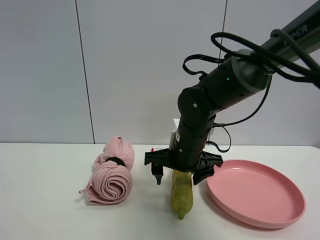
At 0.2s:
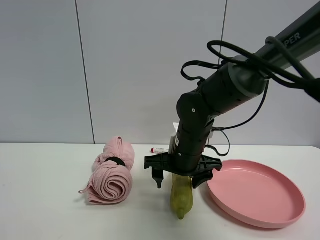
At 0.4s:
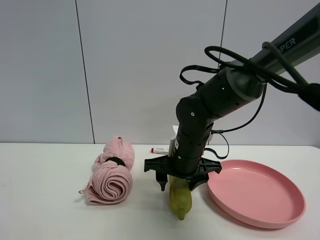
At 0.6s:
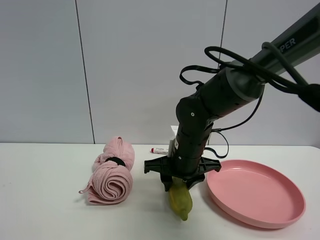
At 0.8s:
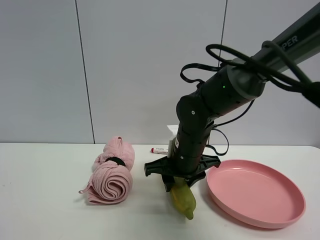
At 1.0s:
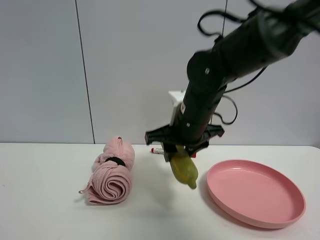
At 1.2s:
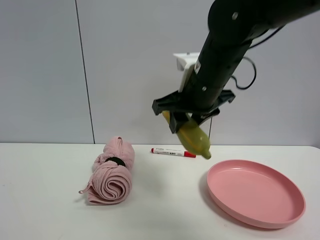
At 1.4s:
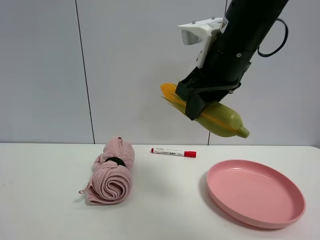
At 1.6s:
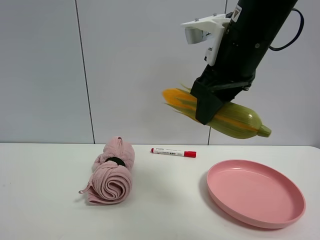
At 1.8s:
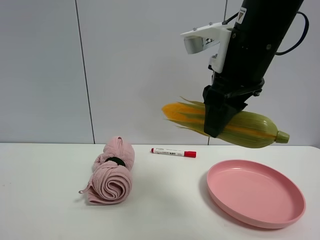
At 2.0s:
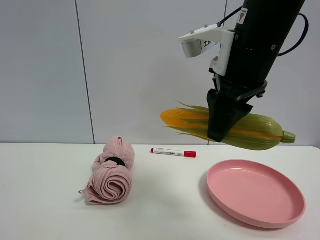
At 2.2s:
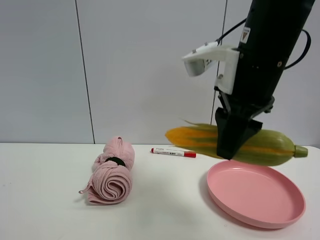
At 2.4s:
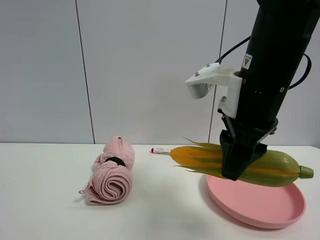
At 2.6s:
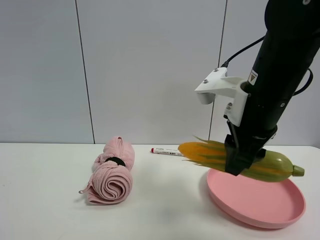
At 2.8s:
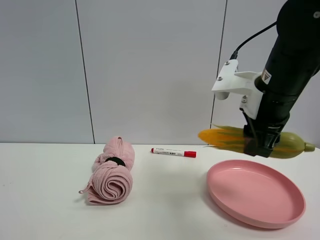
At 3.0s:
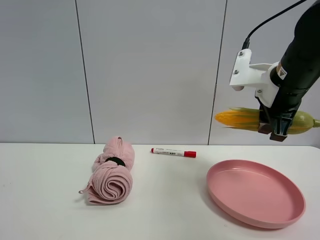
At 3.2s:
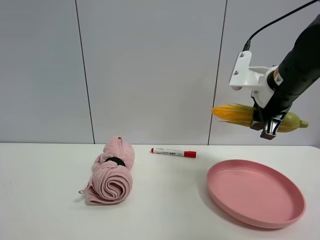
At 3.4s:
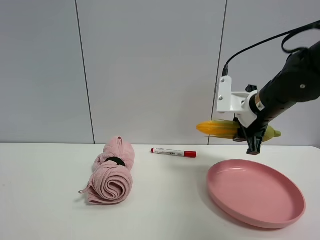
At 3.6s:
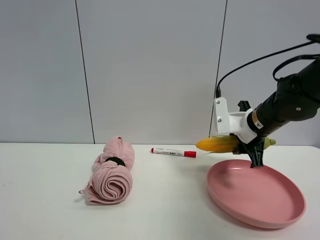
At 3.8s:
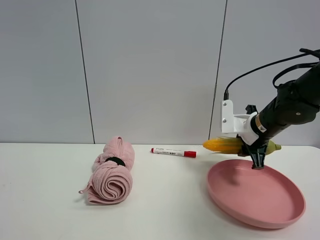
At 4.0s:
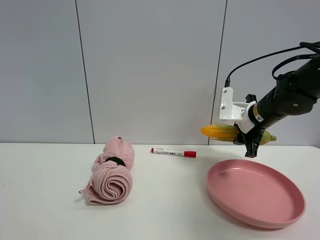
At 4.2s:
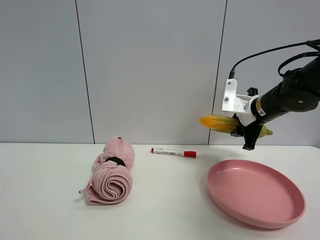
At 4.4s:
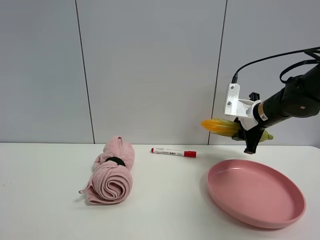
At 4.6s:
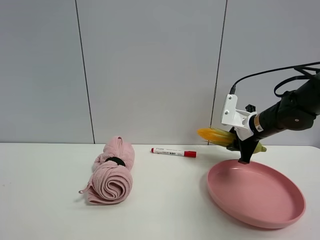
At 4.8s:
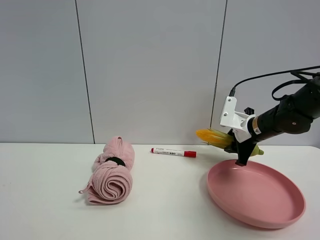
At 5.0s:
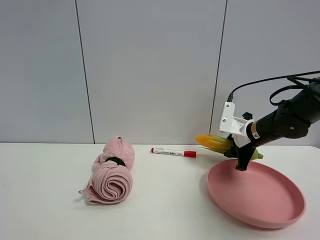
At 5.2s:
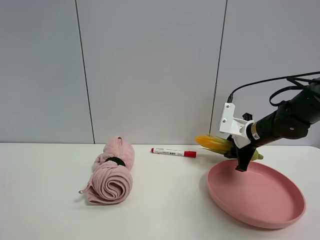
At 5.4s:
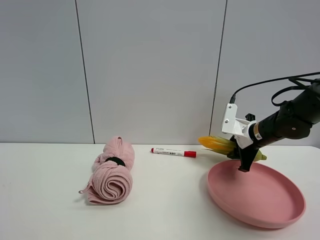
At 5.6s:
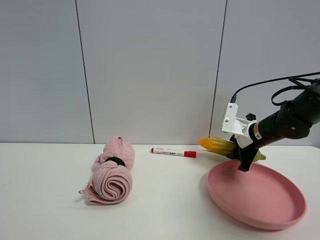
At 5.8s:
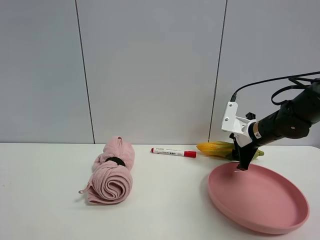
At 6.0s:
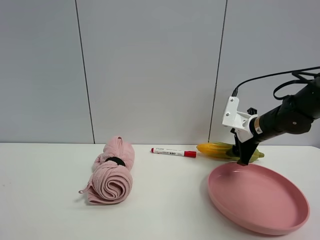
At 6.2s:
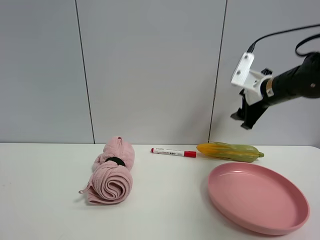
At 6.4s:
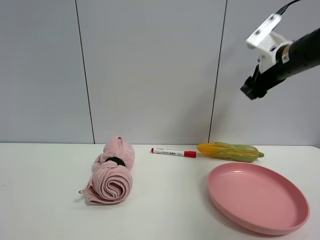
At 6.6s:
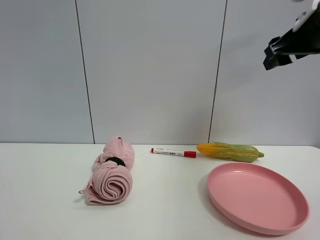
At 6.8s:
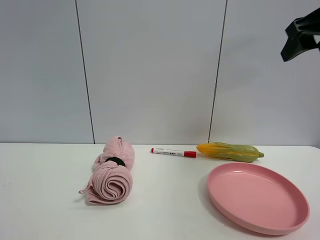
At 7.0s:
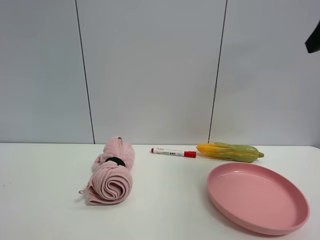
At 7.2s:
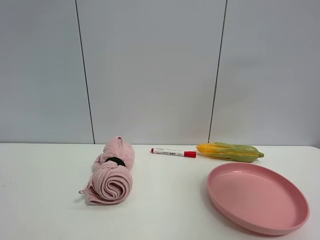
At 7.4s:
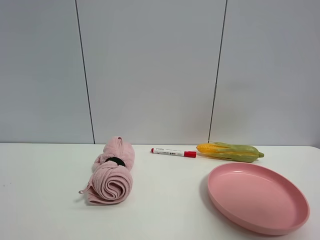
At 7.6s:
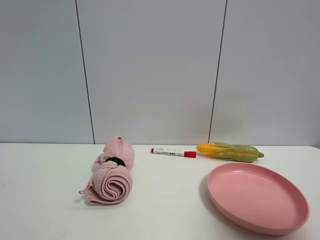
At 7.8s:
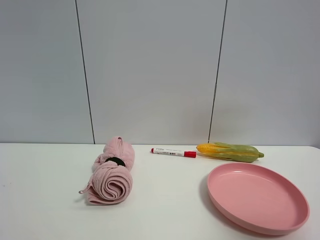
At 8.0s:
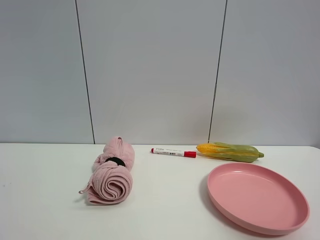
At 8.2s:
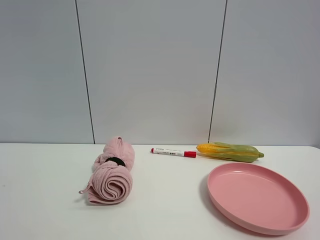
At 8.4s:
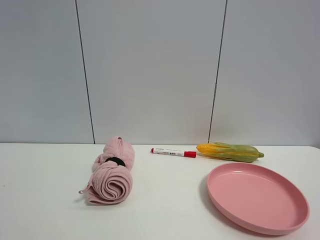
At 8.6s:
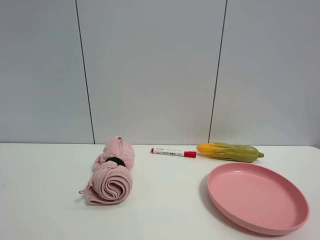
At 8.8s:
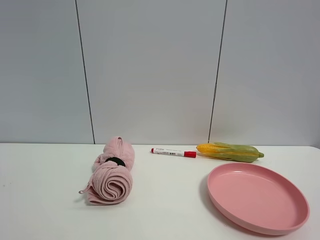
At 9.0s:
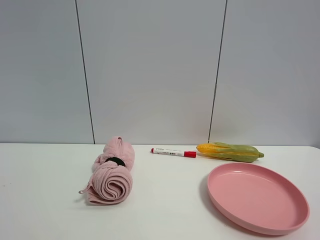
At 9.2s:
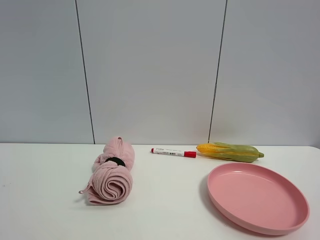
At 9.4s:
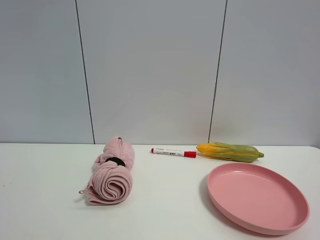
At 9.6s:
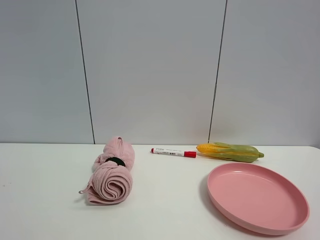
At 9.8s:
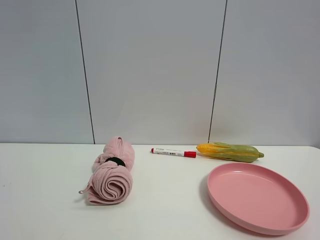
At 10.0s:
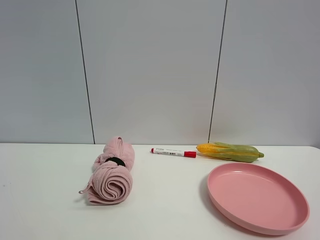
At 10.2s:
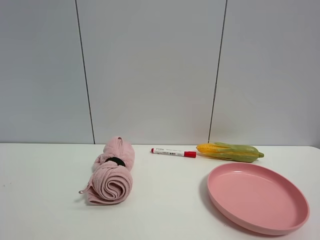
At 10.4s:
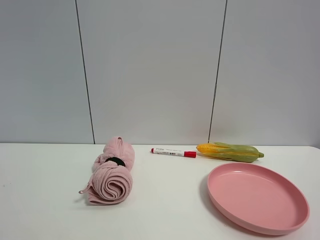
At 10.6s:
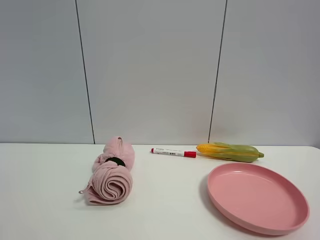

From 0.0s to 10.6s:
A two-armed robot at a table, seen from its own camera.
Task of the whole recording: the gripper move the object.
Step, from 0.6s to 6.2s: Place the corn on the table with the right gripper.
From 0.0s to 1.6s: The right gripper moves upward and backward, some 20 cm, and closes.
From 1.6s to 3.0s: The right gripper goes approximately 15 cm to the right, downward and forward.
From 3.0s to 4.6s: The right gripper shifts roughly 15 cm downward and forward.
From 4.6s to 6.0s: The right gripper opens up.
From 6.0s to 7.6s: The right gripper travels backward and upward by approximately 40 cm.
From 7.6s to 9.0s: The right gripper goes approximately 10 cm backward and downward.
From 9.0s to 10.6s: Neither gripper changes place.

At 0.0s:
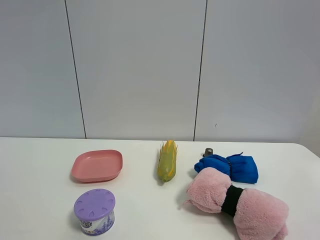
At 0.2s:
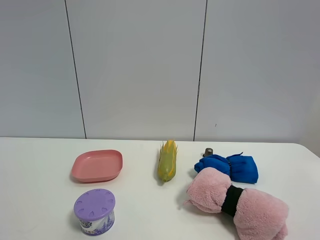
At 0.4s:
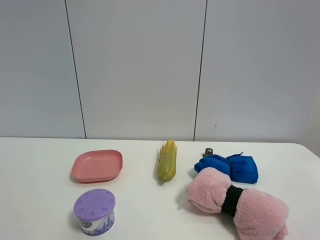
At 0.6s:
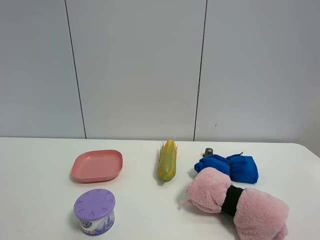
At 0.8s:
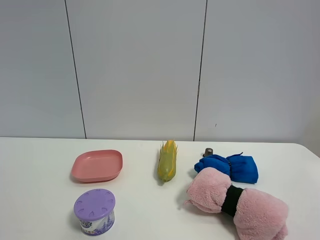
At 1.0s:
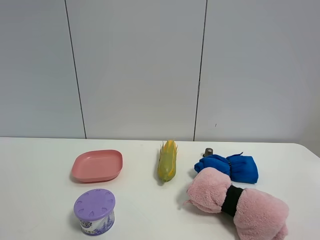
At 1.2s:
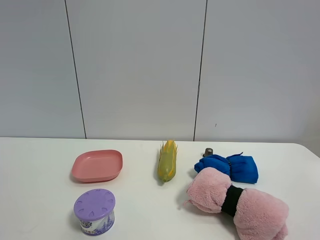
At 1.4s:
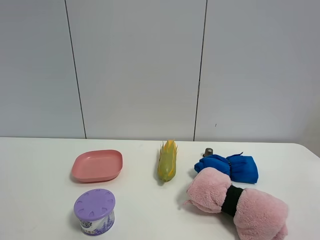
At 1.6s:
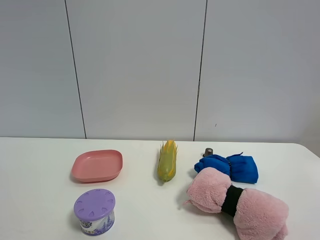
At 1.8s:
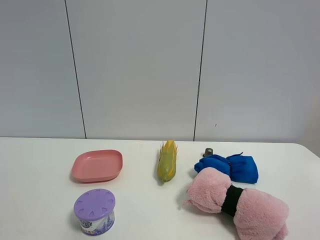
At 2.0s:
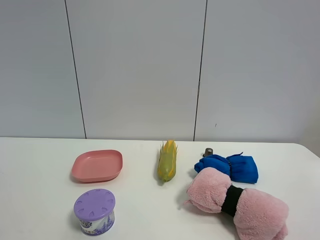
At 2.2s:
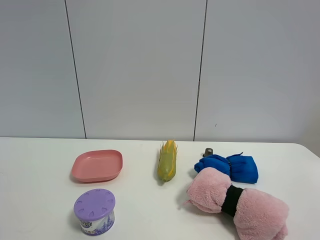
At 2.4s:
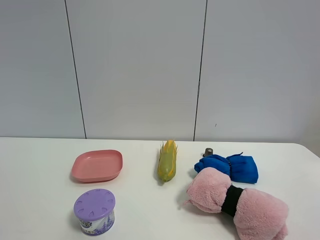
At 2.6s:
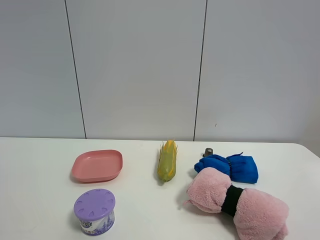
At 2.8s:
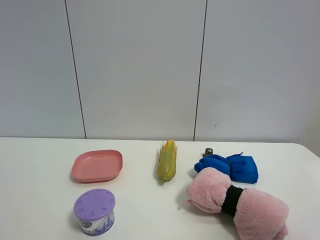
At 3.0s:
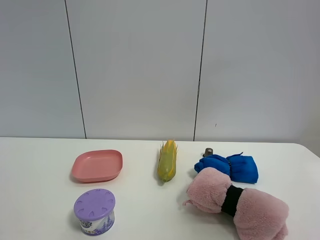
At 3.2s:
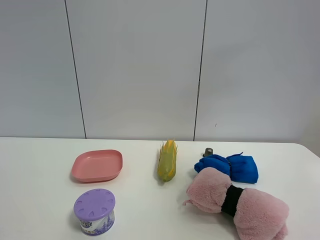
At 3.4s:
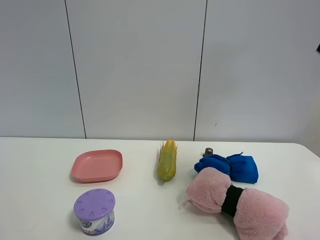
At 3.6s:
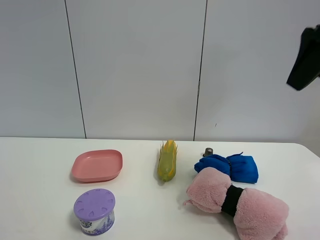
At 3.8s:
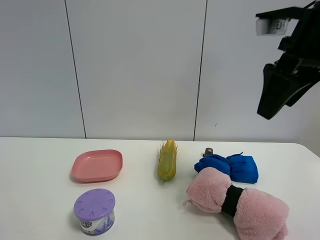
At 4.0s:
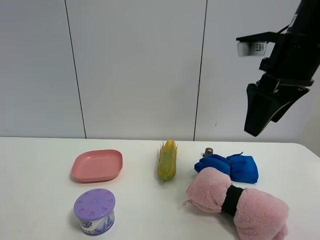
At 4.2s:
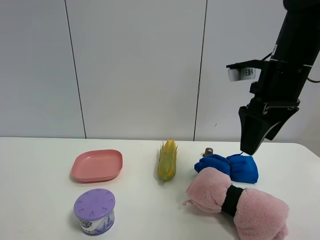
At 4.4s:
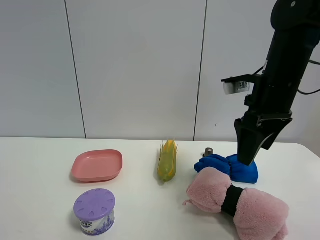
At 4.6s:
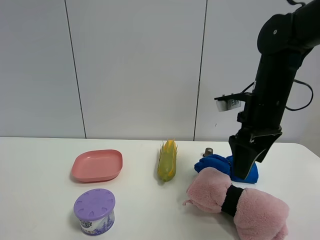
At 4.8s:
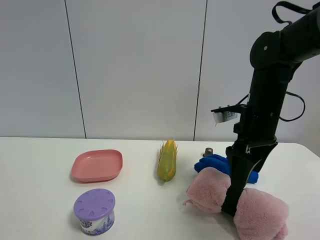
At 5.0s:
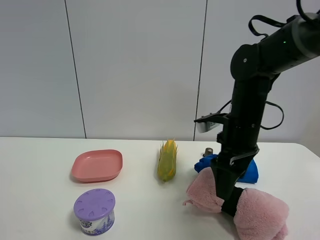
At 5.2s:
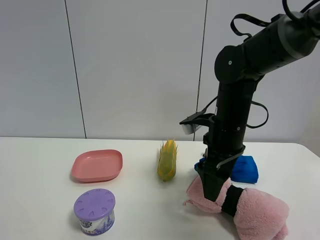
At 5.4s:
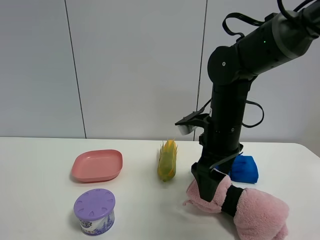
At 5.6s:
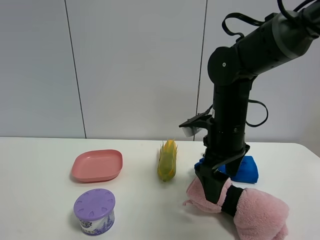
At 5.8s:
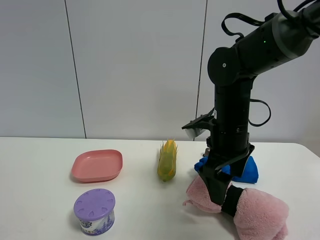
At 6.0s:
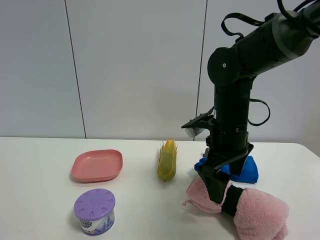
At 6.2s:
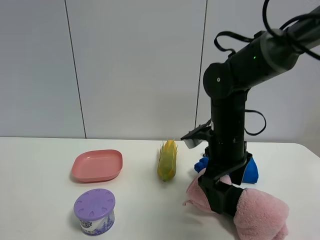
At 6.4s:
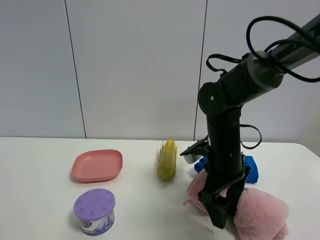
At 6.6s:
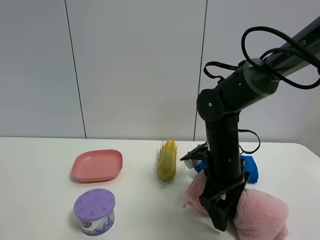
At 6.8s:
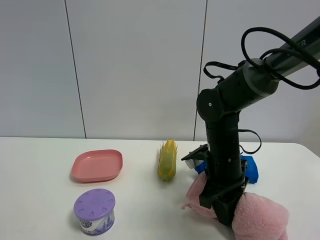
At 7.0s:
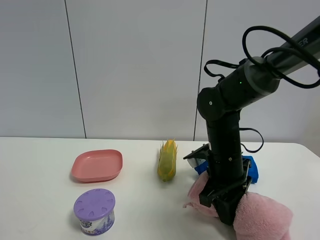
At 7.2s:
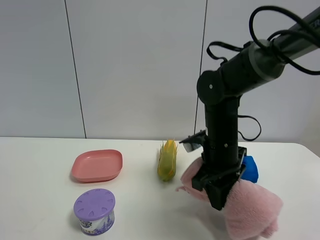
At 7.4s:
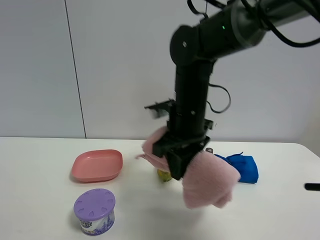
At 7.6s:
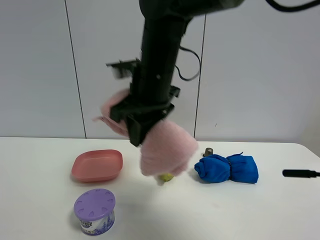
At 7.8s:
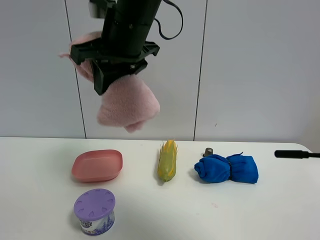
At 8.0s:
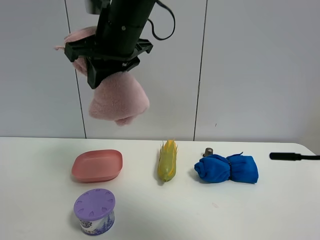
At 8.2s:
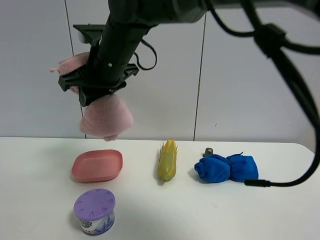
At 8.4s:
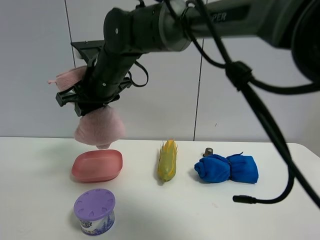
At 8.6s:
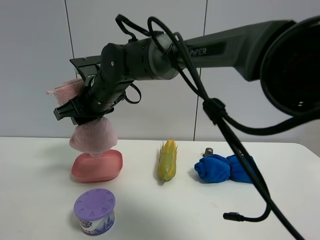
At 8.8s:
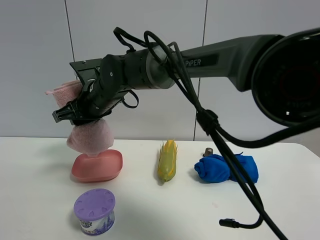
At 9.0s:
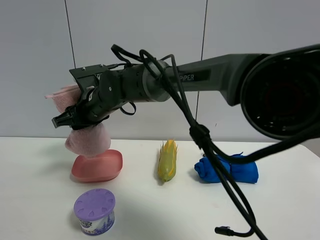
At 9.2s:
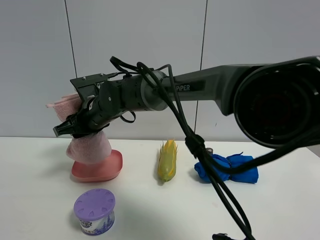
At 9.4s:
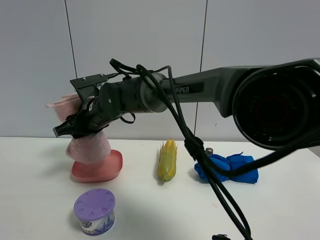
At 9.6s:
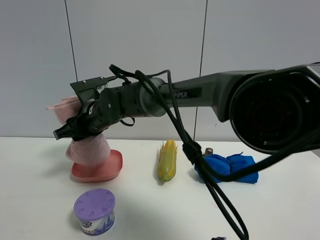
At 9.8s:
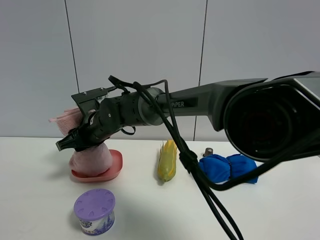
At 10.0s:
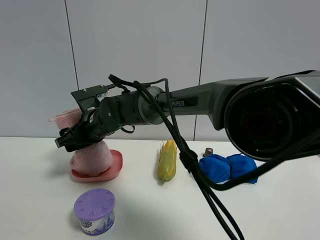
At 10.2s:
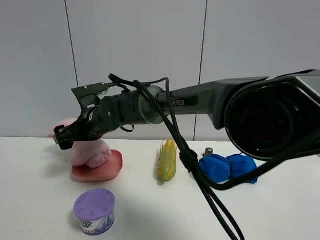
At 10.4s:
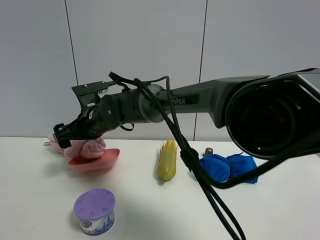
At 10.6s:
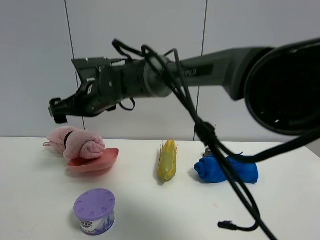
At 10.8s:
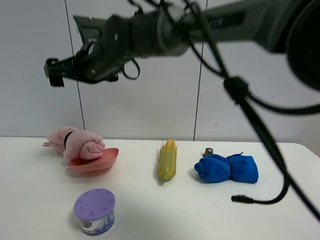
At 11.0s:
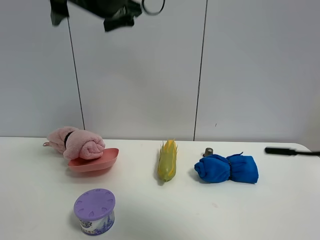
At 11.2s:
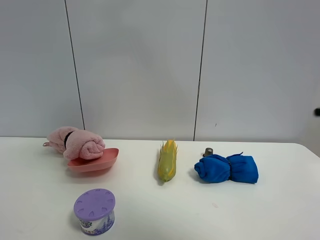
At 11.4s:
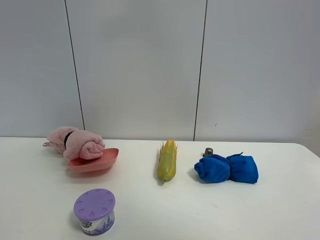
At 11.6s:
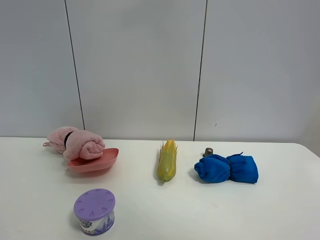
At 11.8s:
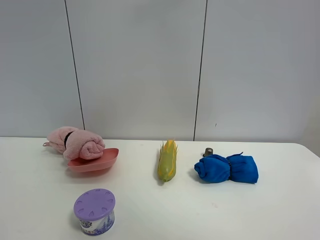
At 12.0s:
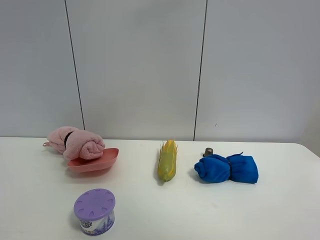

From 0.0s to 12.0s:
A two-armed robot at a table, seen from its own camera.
Task of the whole recording: the gripper move the object.
Step, from 0.0s to 6.8s: Grasp the pink towel with the right gripper.
Step, from 7.0s to 10.6s: Place the pink towel on the table with the right gripper.
From 0.0s to 1.6s: The two grippers keep their place.
From 1.6s to 3.0s: The right gripper shifts some 20 cm upward and forward.
From 3.0s to 4.4s: The right gripper travels forward, downward and to the left by approximately 30 cm.
From 4.4s to 6.0s: The right gripper is displaced downward and to the left by approximately 10 cm.
From 6.0s to 7.6s: The right gripper travels to the left and upward by about 15 cm, and closes its fingers.
From 7.6s to 9.0s: The right gripper moves to the left, downward and forward, roughly 15 cm.
From 9.0s to 10.4s: The right gripper opens.
From 10.4s to 12.0s: The right gripper shifts approximately 50 cm upward and to the right.
